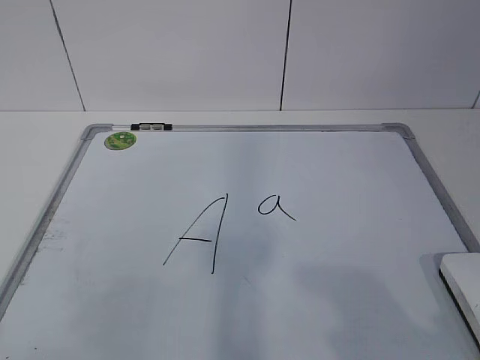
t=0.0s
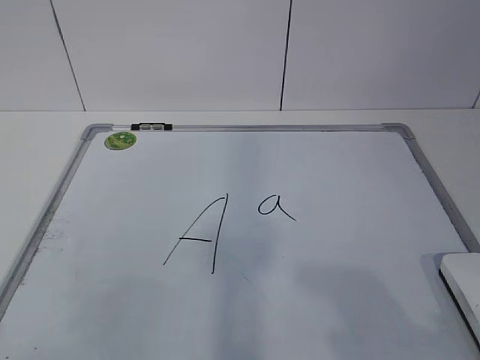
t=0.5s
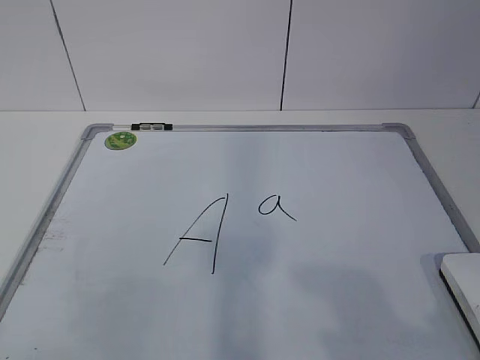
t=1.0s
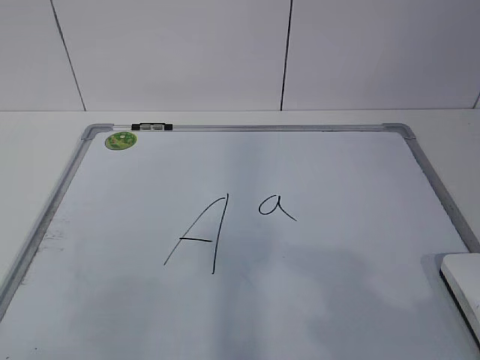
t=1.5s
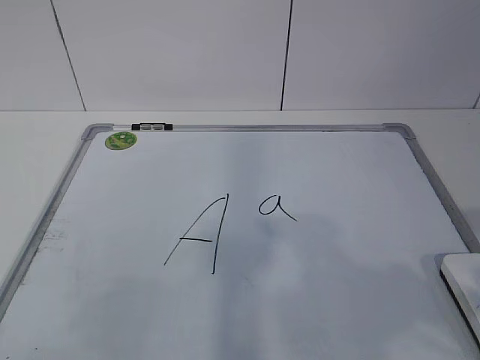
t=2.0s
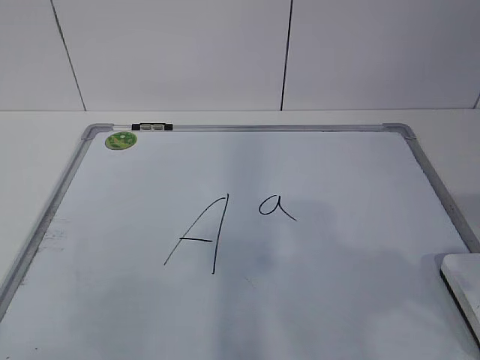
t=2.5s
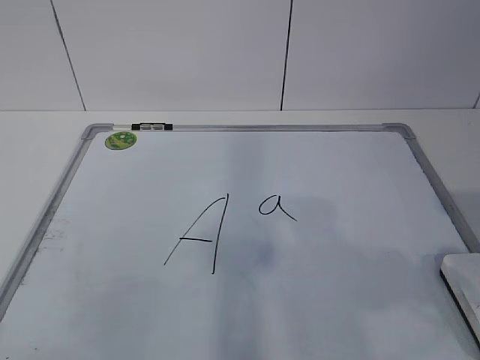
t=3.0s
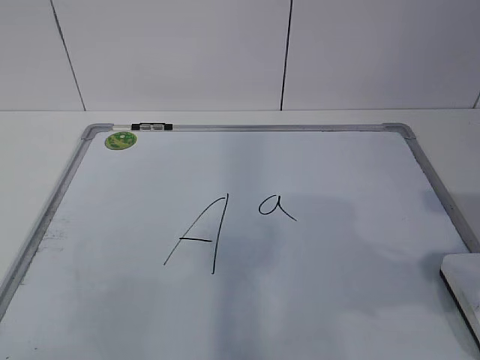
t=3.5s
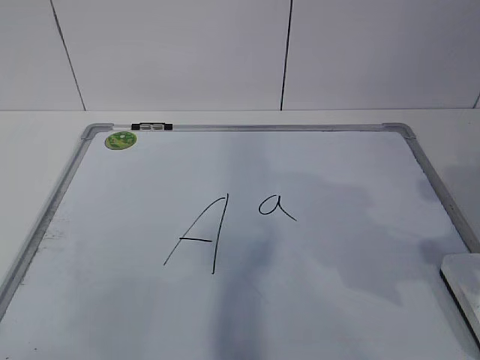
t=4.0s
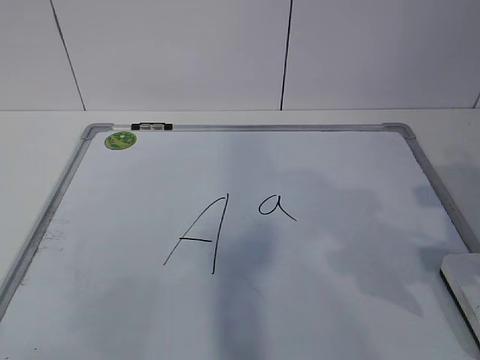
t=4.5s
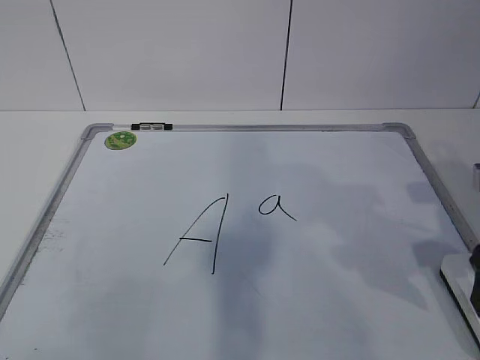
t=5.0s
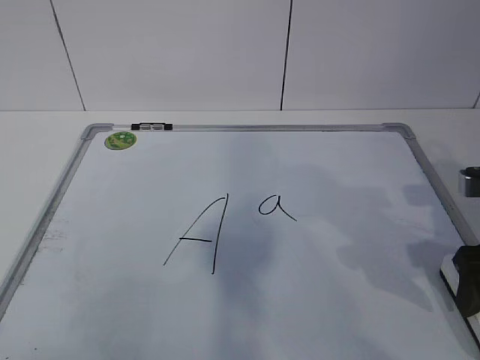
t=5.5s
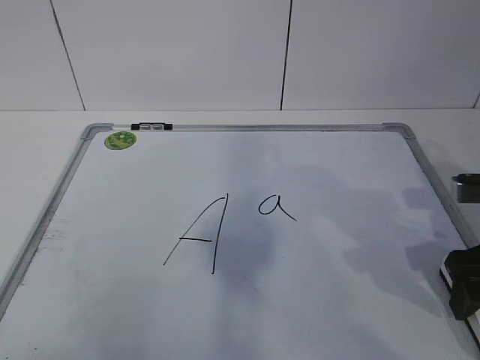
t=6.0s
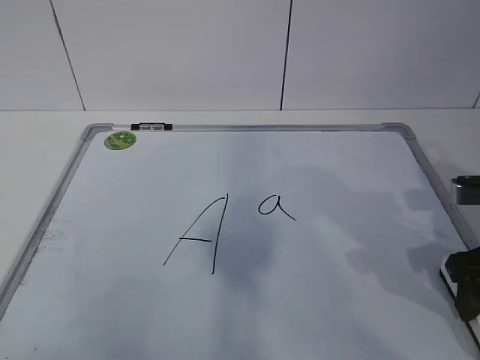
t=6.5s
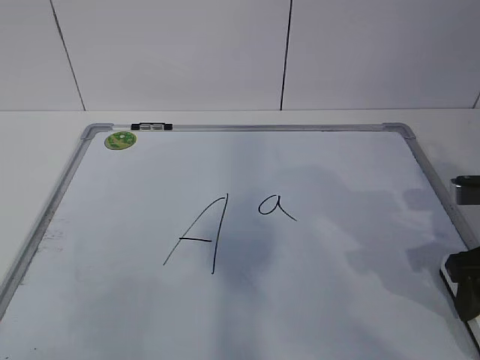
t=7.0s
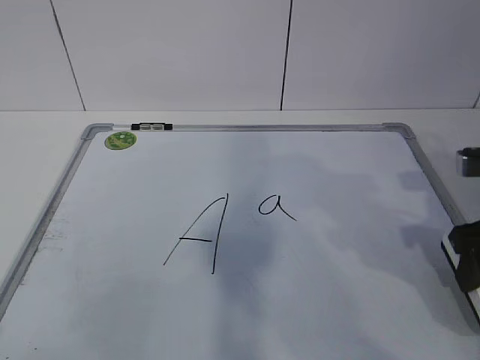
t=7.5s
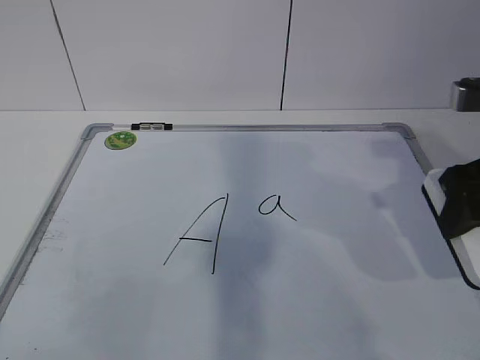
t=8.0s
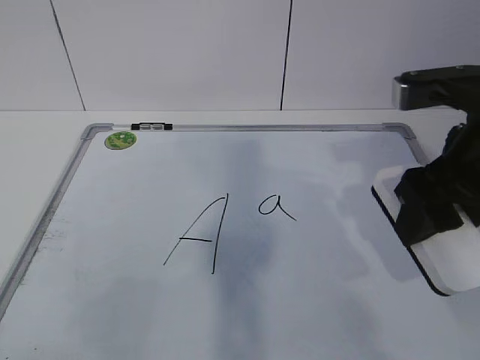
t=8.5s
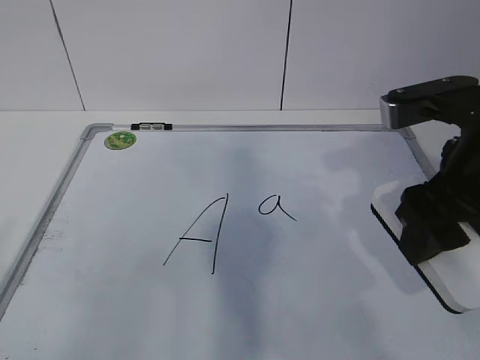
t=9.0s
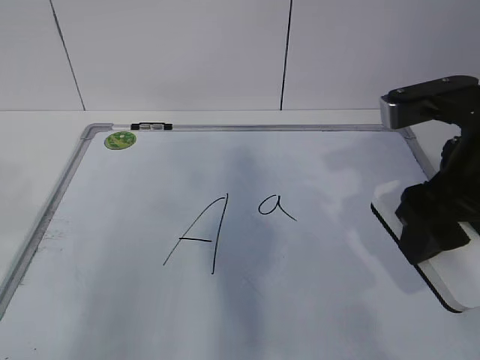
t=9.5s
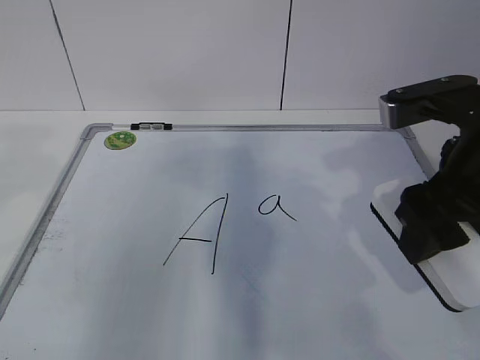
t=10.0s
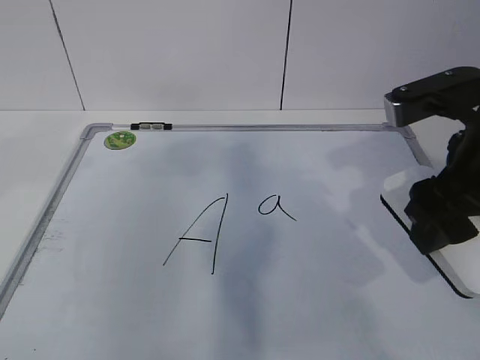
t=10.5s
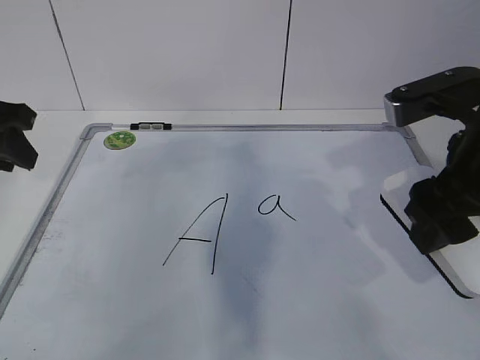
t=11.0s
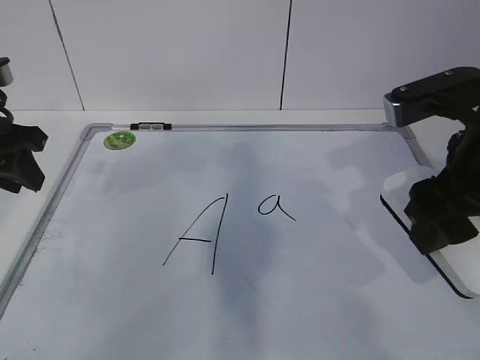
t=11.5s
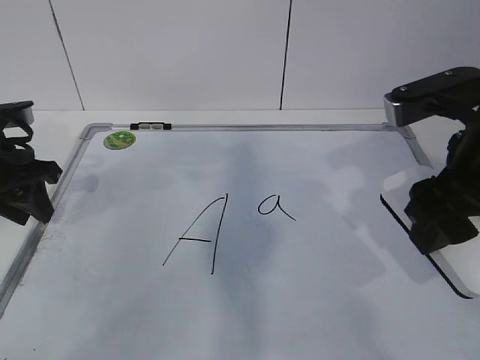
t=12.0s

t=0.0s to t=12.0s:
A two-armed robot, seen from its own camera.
Task of the whole recording: pick up the eraser on the blackboard and erase the letter "a".
Step, t=0.0s to t=5.5s: Grab the eraser with your right hand.
t=2.0s to t=4.0s: The right gripper travels forward by some 15 cm.
t=4.0s to t=6.0s: The right gripper shifts about 10 cm downward and forward.
t=6.0s to t=8.0s: The right gripper is displaced upward by roughly 10 cm, and closes.
t=8.0s to t=10.0s: The right gripper moves to the left, about 5 cm.
t=10.0s to t=12.0s: The left gripper goes approximately 25 cm forward and downward.

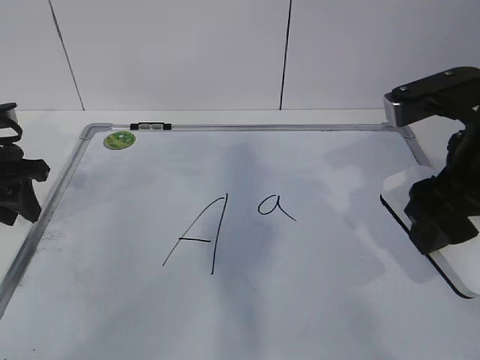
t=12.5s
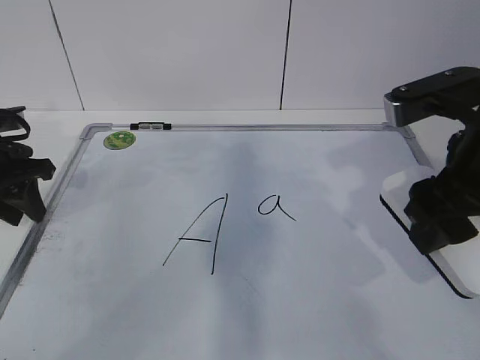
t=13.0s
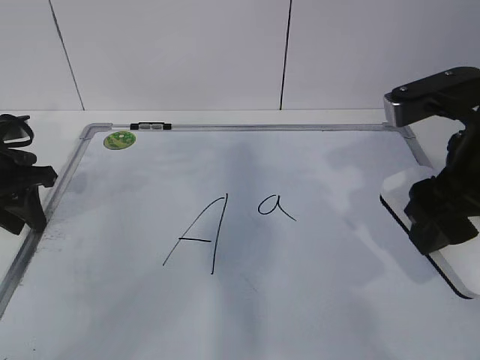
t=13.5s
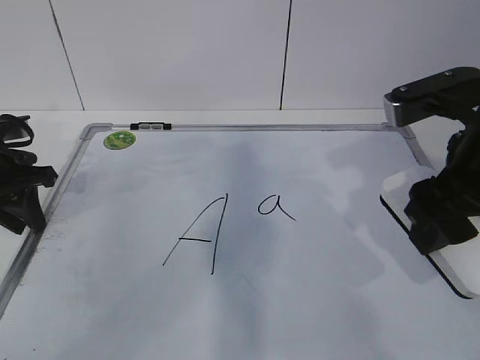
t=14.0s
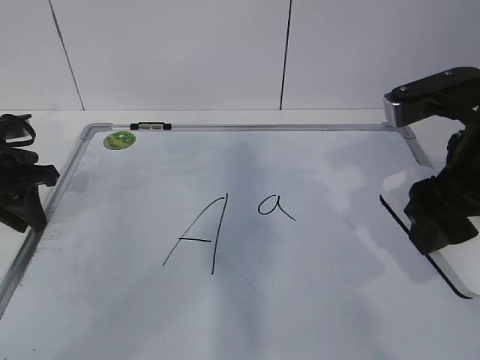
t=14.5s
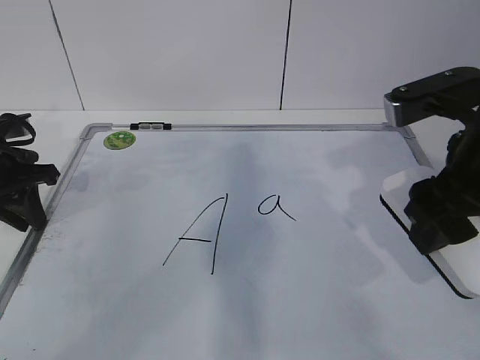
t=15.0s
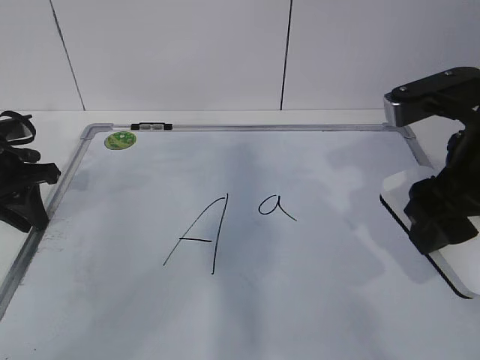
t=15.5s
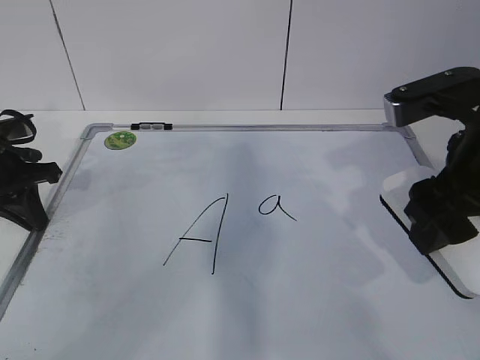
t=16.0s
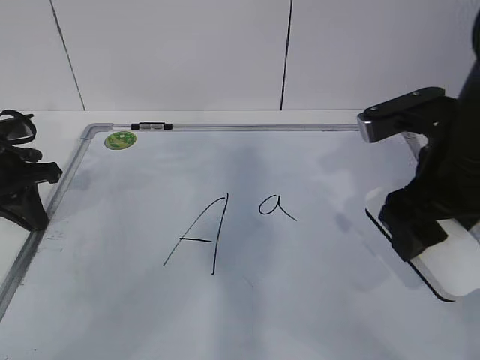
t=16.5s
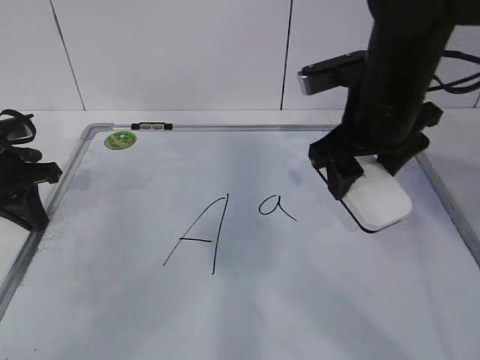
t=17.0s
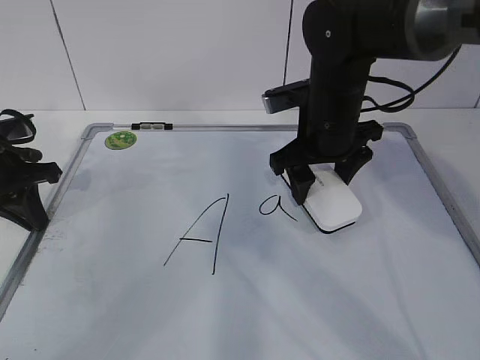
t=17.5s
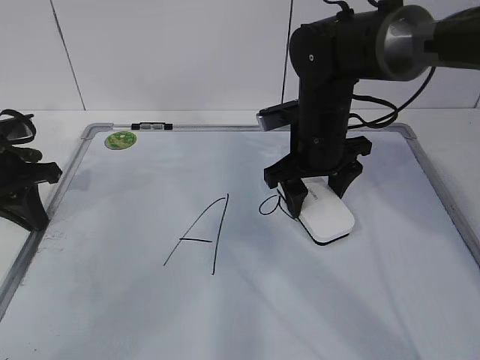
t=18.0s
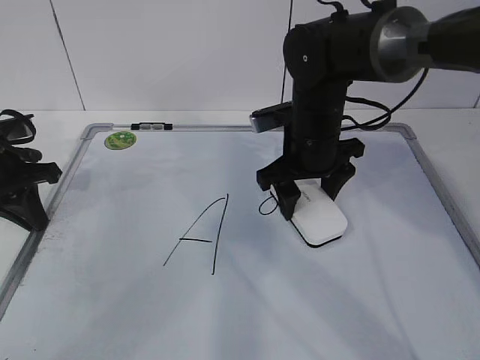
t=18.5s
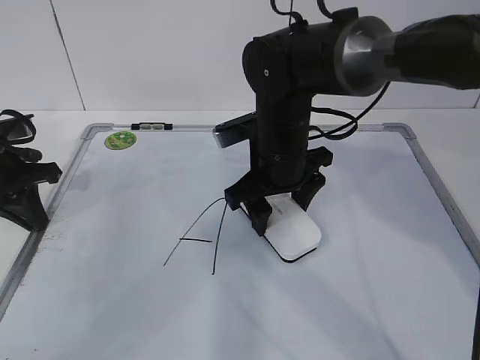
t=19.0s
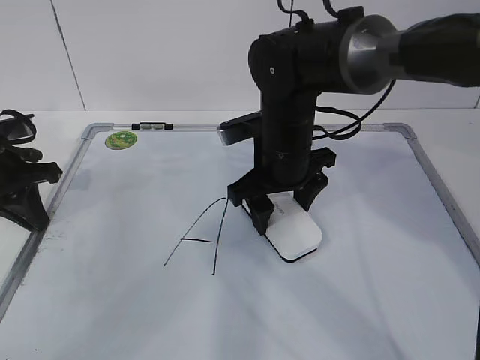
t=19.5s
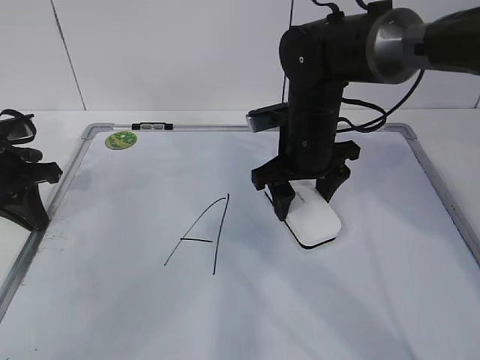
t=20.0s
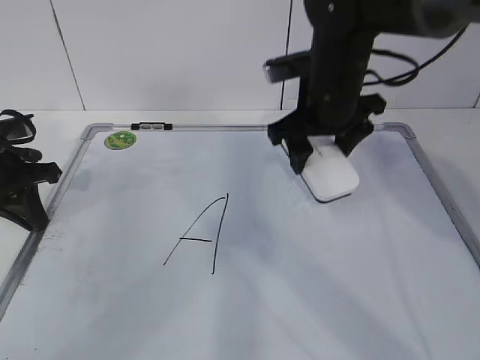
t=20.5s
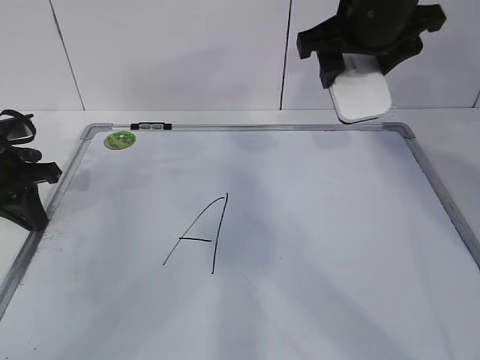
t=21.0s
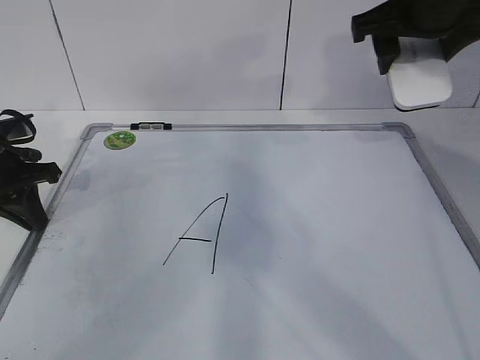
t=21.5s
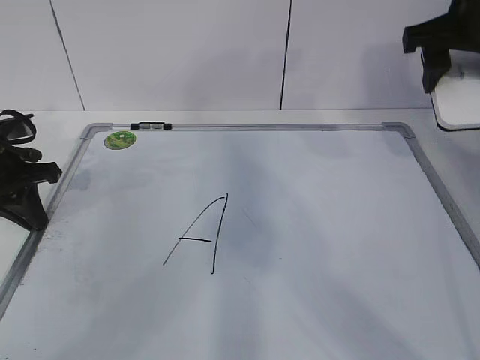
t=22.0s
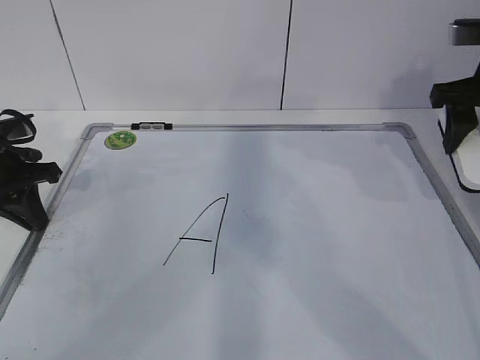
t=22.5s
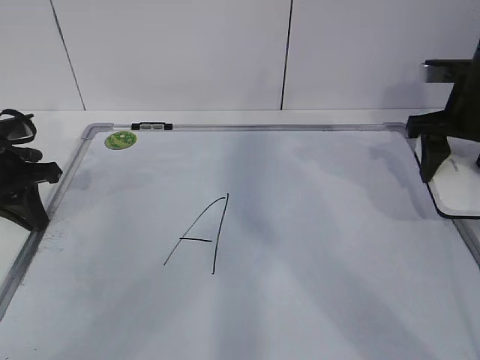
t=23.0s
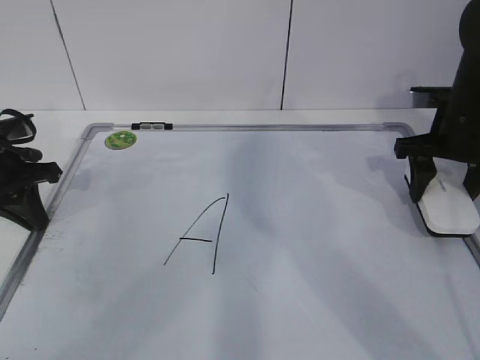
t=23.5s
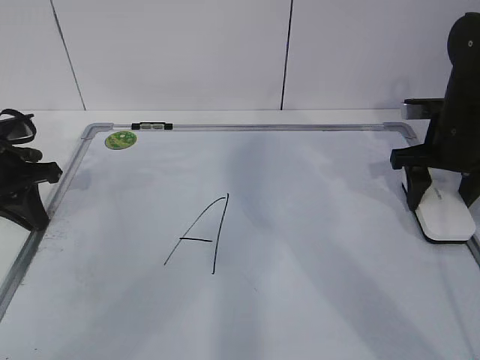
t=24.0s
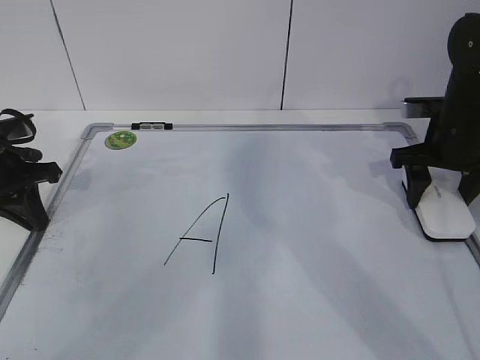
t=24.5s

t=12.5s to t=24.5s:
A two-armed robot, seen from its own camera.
Task of the whole recording: pick up the eraser on the blackboard and erase the letter "a".
Step, t=14.0s to t=16.5s: Erase the letter a with your right hand.
Step, t=17.0s to t=21.5s: Put down the eraser with your right hand.
t=12.5s to t=14.5s: There are only small adjustments of the grippers.
t=14.5s to t=16.5s: The left gripper closes its fingers.
t=16.5s to t=18.5s: The right gripper goes some 20 cm forward, to the left and downward.
t=18.5s to t=20.5s: The right gripper travels upward by about 5 cm.
t=20.5s to t=22.5s: The right gripper moves to the right, some 15 cm.
t=22.5s to t=24.5s: The right gripper is displaced downward by roughly 10 cm.

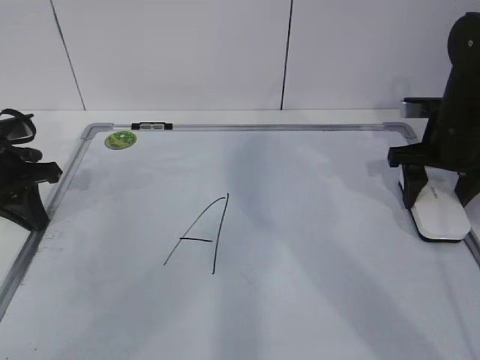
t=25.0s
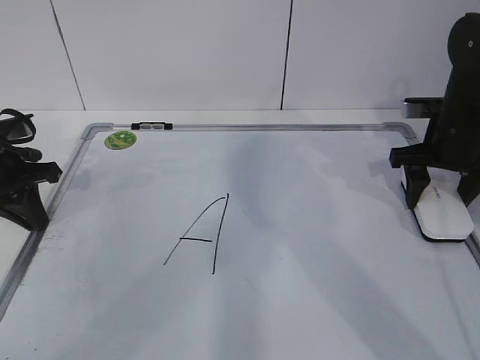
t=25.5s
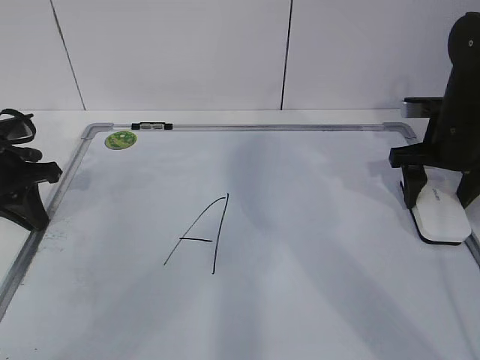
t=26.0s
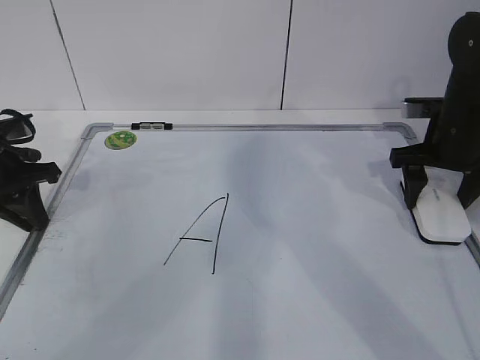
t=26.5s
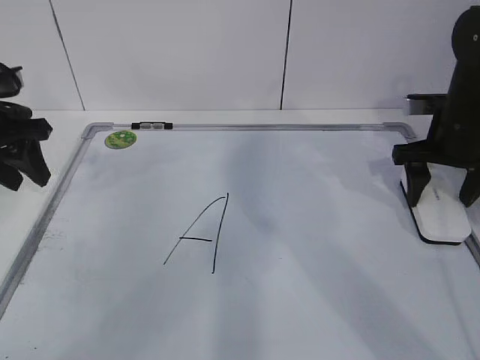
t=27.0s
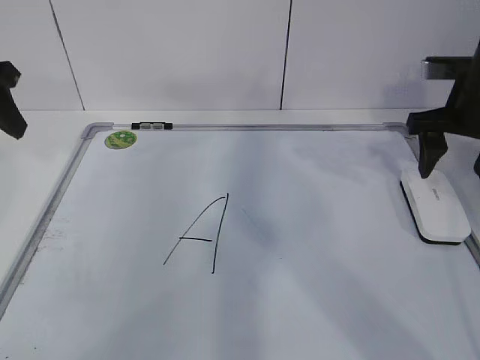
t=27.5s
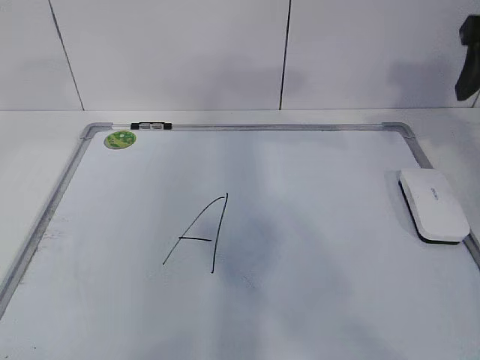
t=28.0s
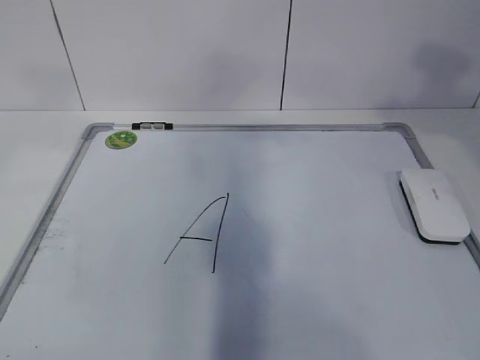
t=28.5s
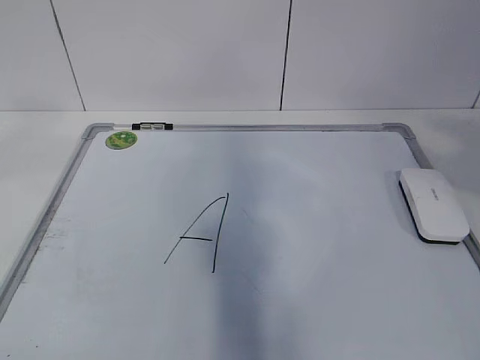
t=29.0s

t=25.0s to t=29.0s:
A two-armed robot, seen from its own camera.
Task of the whole recording: pick up the eraser on the blackboard and erase the letter "a".
t=25.0s to t=27.0s: The left gripper shifts approximately 5 cm upward, and opens up. The right gripper opens up.
t=27.0s to t=29.0s: Both grippers move backward and upward, about 40 cm.
